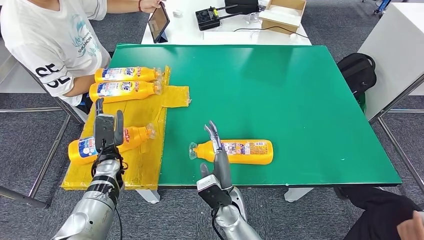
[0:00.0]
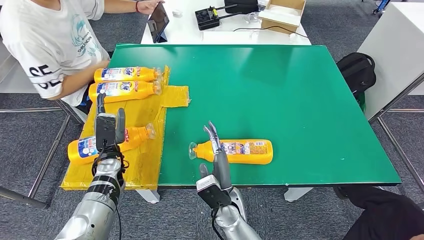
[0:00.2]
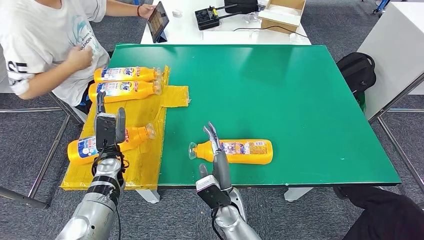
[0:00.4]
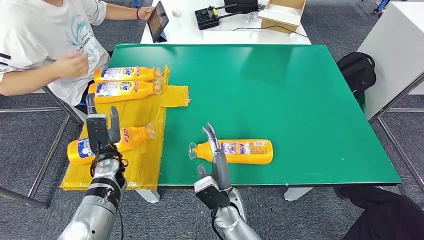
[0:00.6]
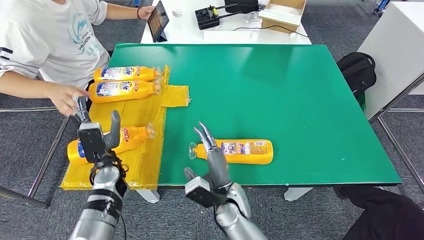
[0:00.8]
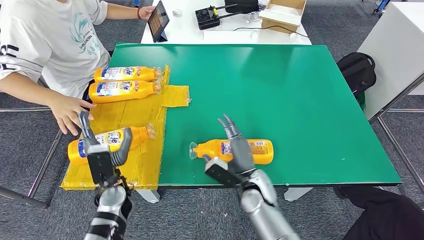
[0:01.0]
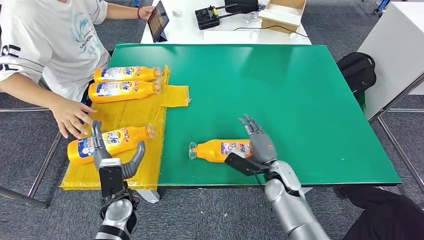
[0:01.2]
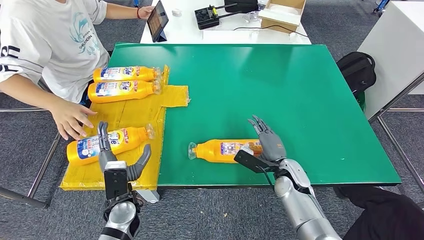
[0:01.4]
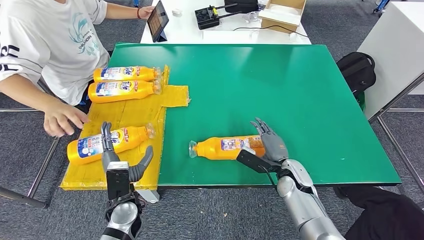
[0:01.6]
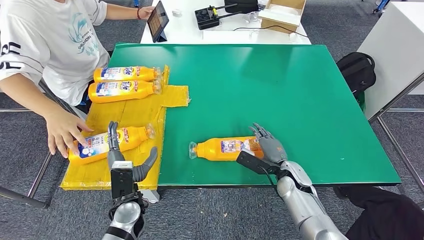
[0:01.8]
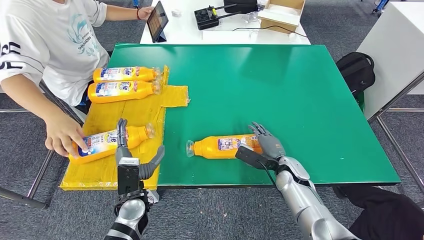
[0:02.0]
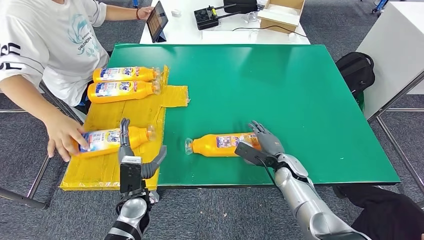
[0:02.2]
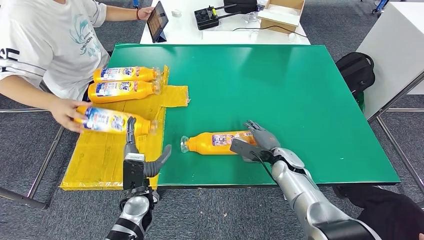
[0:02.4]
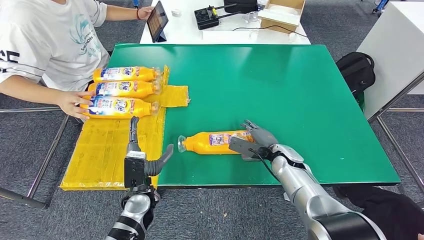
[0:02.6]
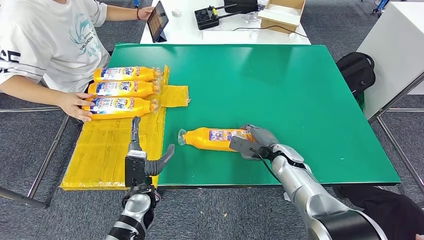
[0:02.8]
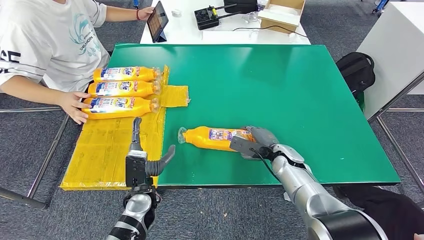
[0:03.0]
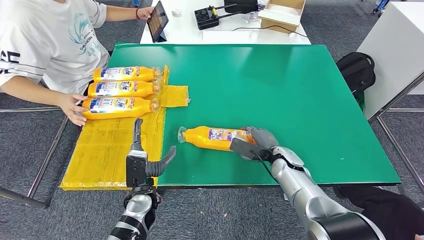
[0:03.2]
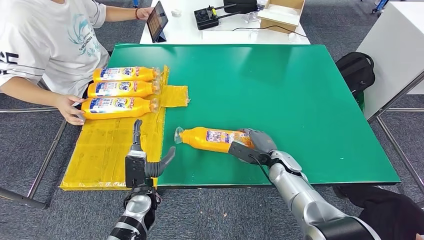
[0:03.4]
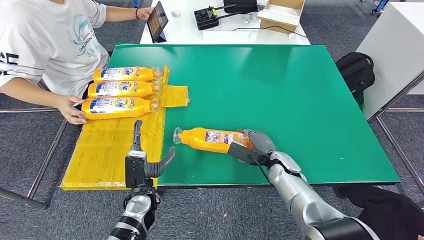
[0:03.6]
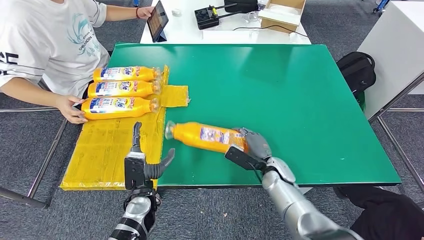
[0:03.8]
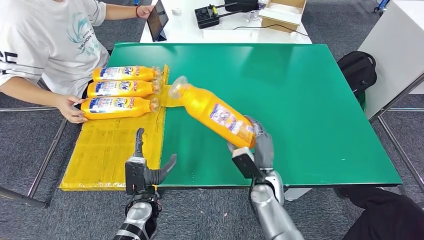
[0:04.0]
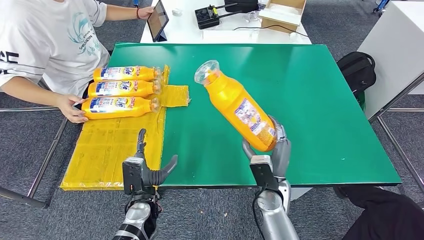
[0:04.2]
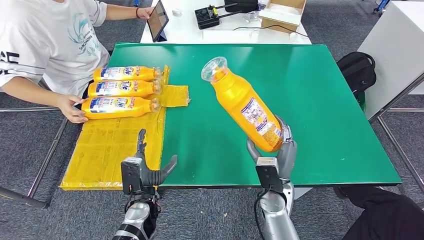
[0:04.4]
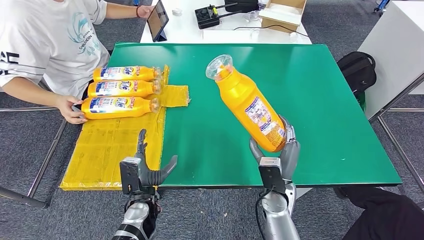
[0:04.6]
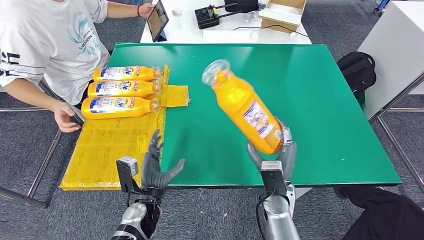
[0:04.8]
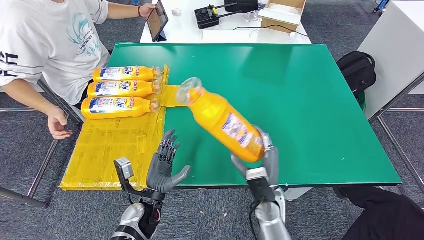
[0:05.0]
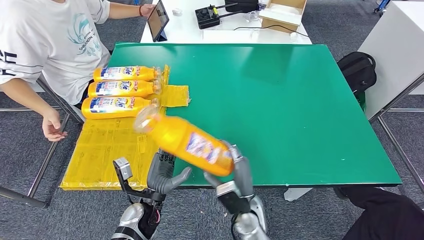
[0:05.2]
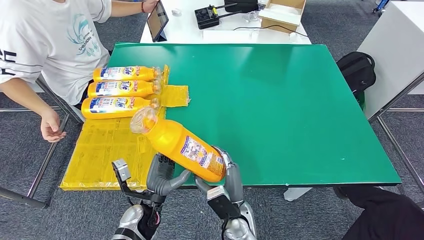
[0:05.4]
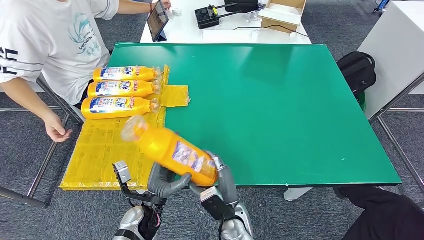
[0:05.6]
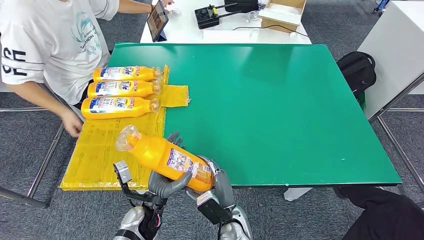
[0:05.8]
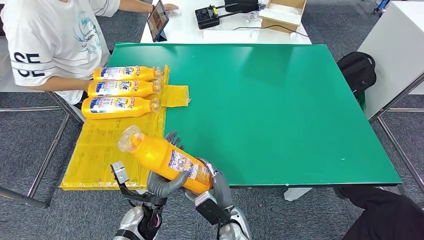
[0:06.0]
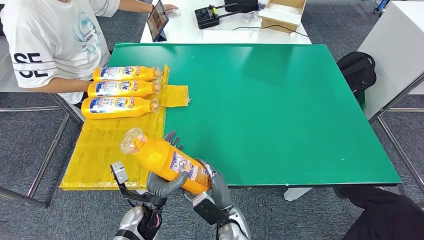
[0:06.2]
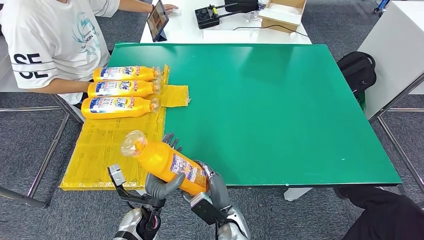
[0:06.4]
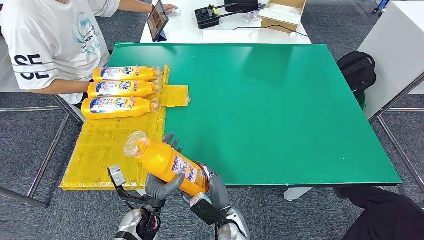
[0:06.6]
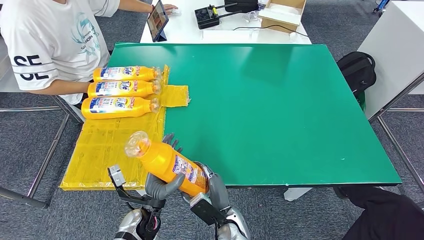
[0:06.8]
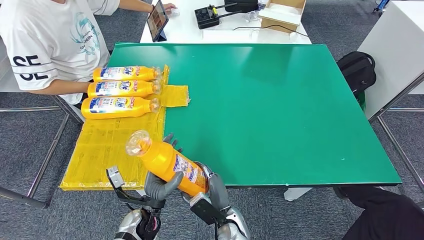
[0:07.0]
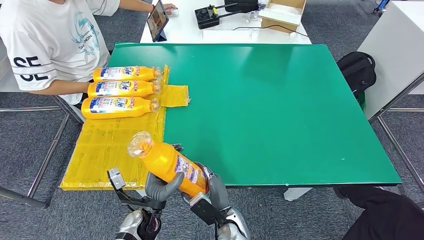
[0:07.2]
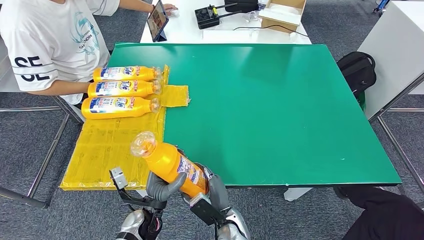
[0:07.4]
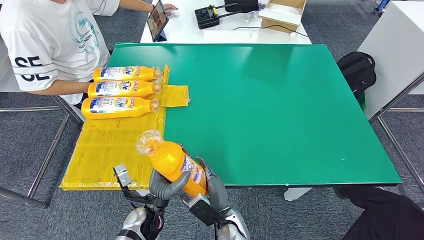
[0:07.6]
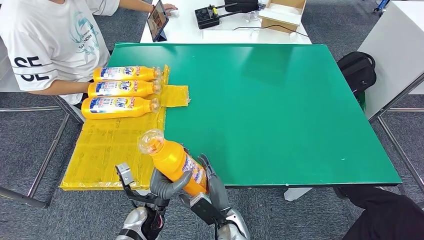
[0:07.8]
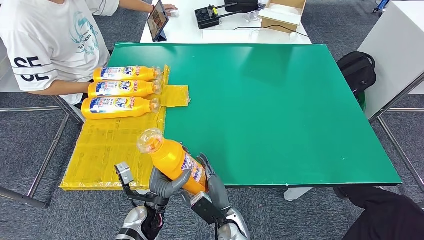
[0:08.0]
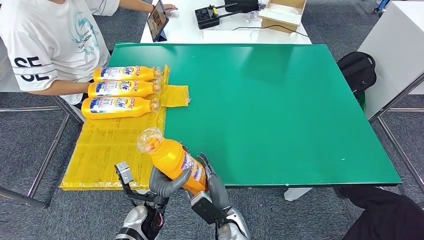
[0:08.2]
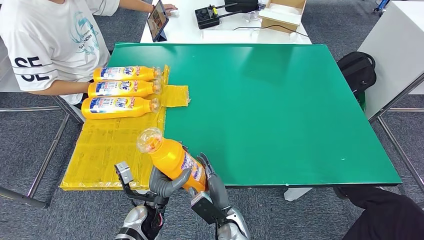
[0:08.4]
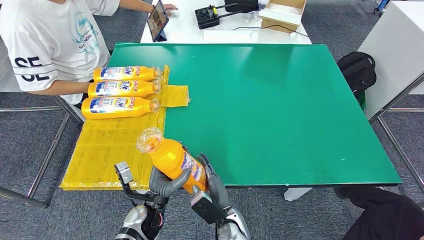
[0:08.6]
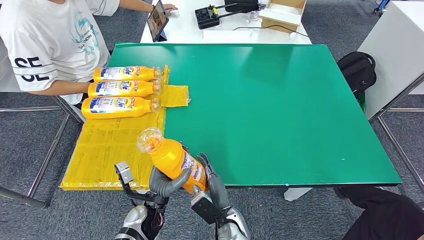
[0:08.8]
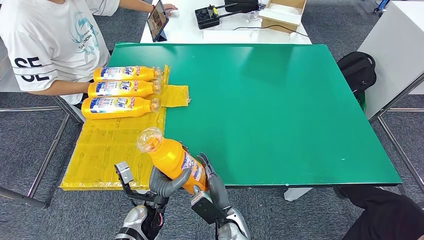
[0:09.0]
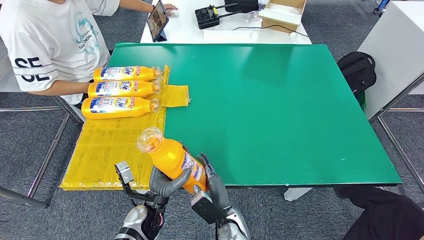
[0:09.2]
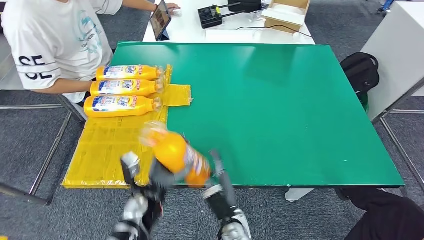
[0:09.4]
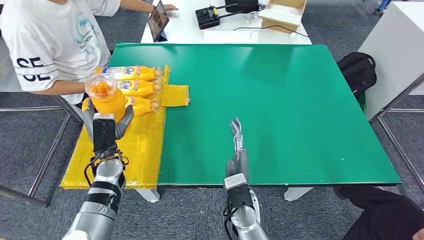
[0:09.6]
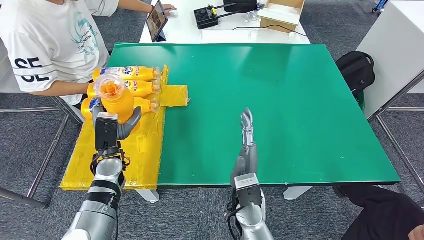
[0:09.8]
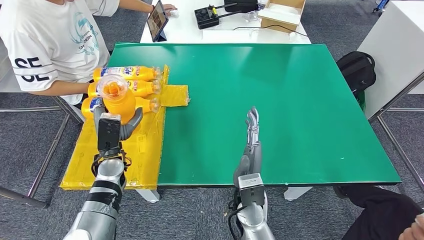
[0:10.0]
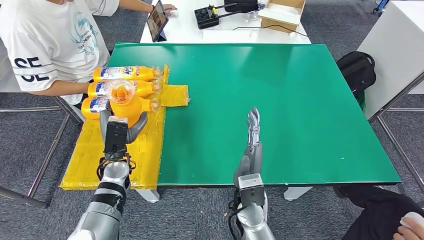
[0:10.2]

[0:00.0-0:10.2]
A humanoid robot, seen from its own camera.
Step, 0:00.0 to 0:07.0: Pick up the bottle from the table.
0:01.4 to 0:03.0: The right hand goes approximately 5 cm forward.
0:03.0 to 0:04.4: The right hand moves backward and to the left, roughly 10 cm.
0:04.4 to 0:05.8: The right hand heads to the left, downward and backward, covering approximately 15 cm.
0:05.8 to 0:08.8: The hands make only small movements.
0:08.8 to 0:10.2: The left hand shifts some 15 cm forward, to the left and upward. Meanwhile the right hand is displaced upward by roughly 10 cm.

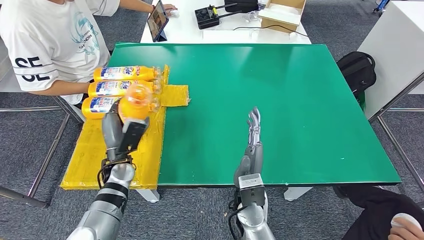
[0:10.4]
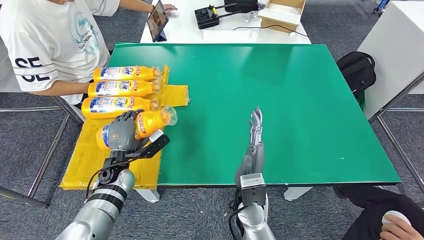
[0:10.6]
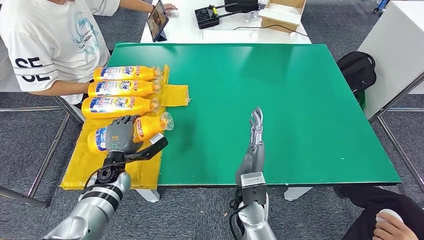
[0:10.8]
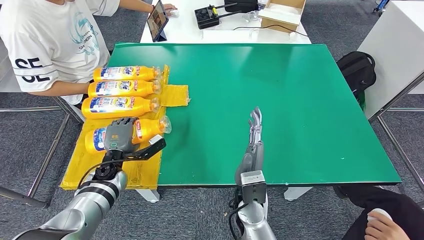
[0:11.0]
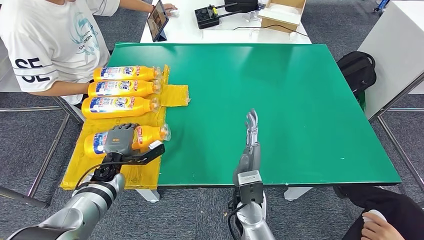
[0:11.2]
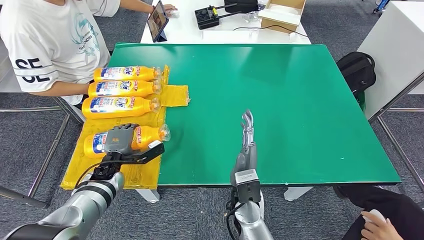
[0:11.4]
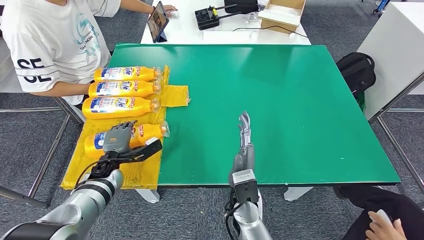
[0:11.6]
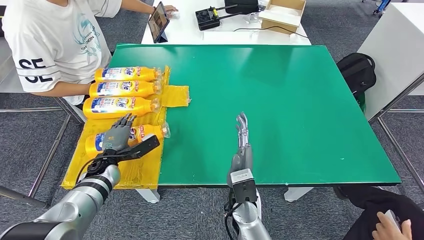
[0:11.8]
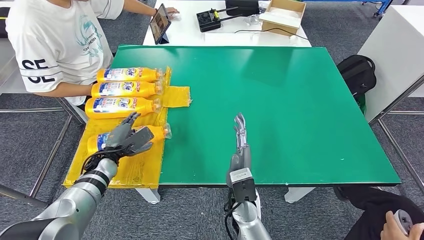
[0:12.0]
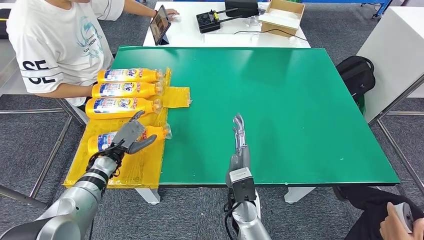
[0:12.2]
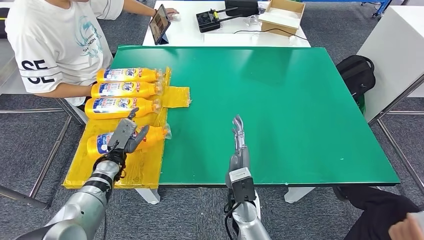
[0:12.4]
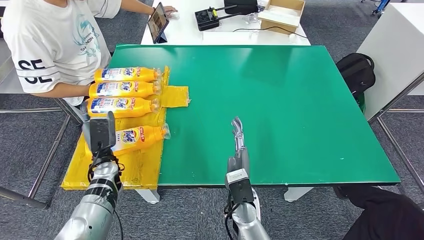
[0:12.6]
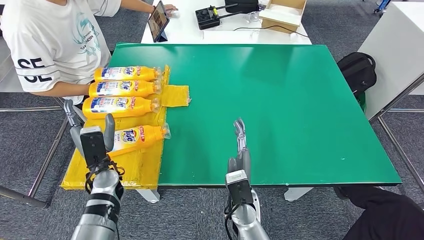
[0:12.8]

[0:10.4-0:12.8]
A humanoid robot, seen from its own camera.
Step, 0:10.4 to 0:12.8: Flip the bottle to face forward.
0:10.4 to 0:11.6: The left hand goes roughly 10 cm to the left and downward.
0:11.6 to 0:12.8: The left hand heads upward, covering some 5 cm.
